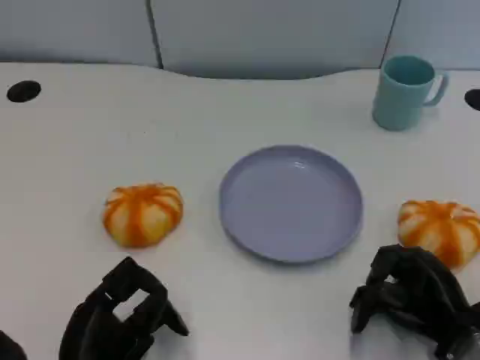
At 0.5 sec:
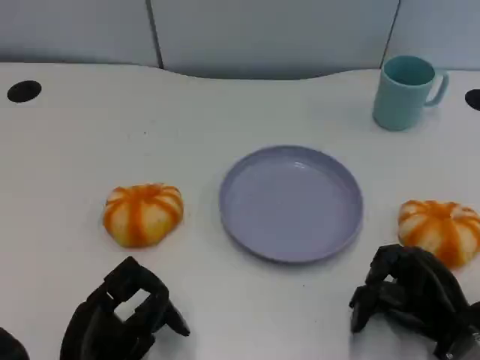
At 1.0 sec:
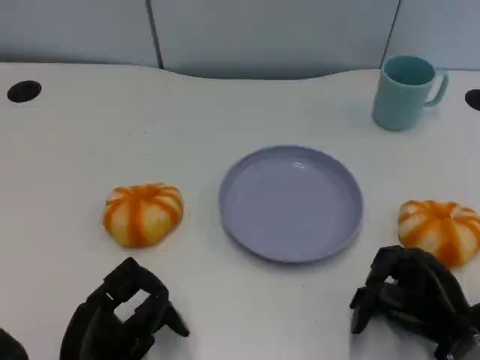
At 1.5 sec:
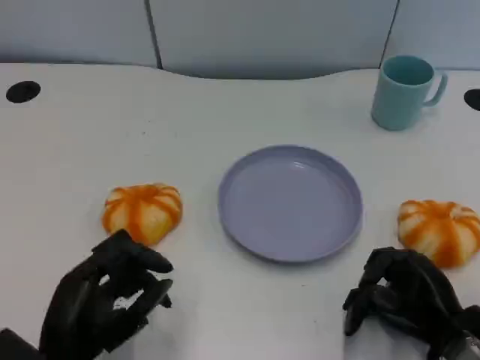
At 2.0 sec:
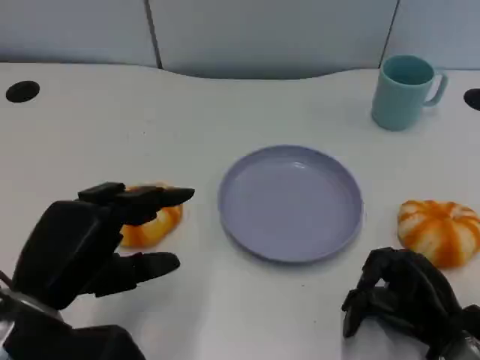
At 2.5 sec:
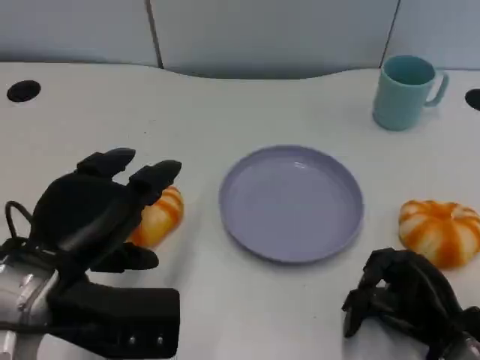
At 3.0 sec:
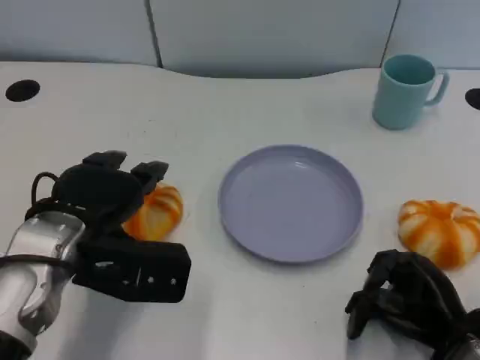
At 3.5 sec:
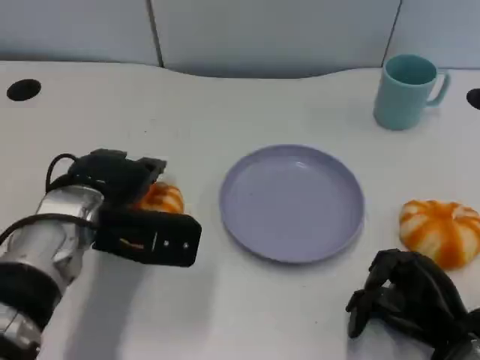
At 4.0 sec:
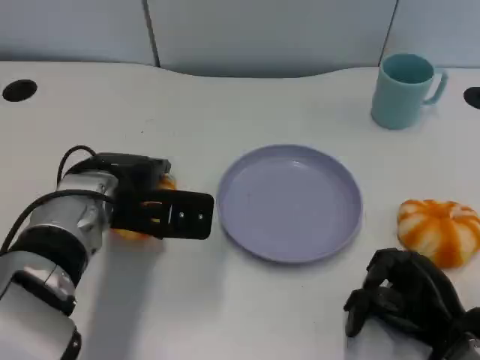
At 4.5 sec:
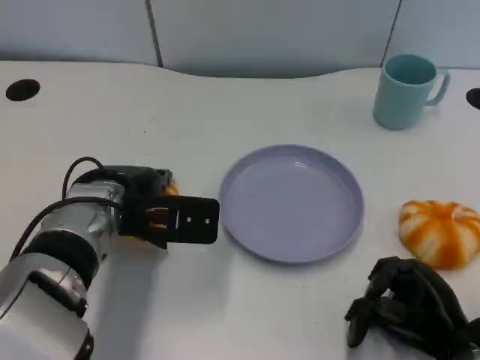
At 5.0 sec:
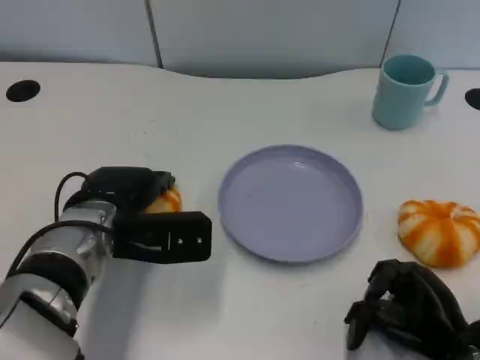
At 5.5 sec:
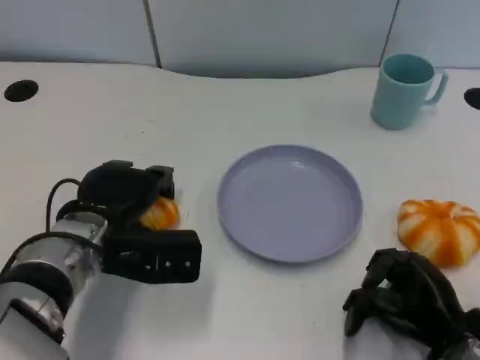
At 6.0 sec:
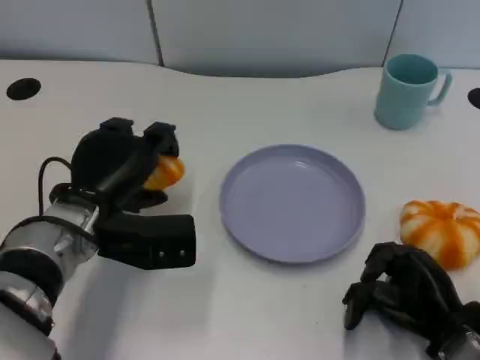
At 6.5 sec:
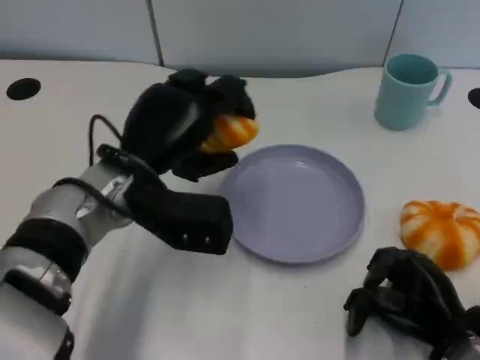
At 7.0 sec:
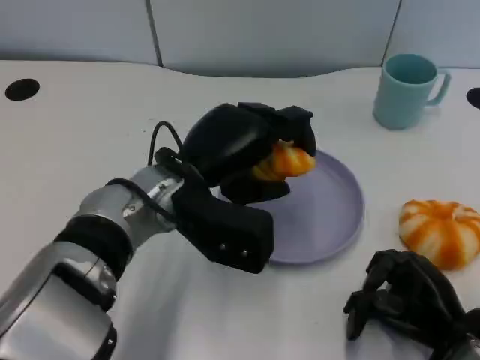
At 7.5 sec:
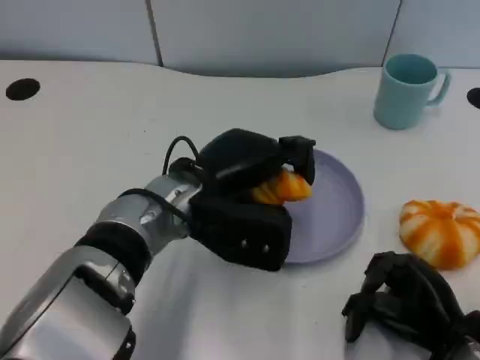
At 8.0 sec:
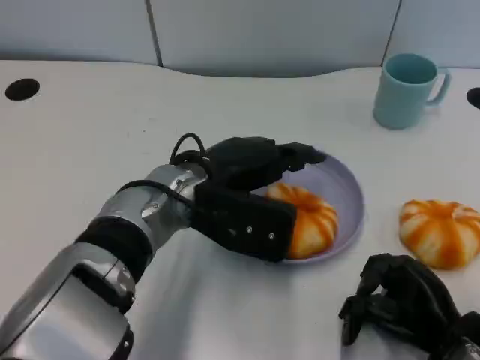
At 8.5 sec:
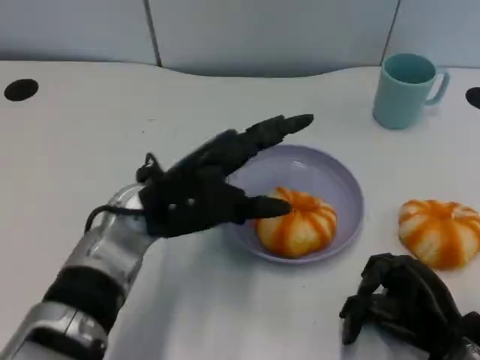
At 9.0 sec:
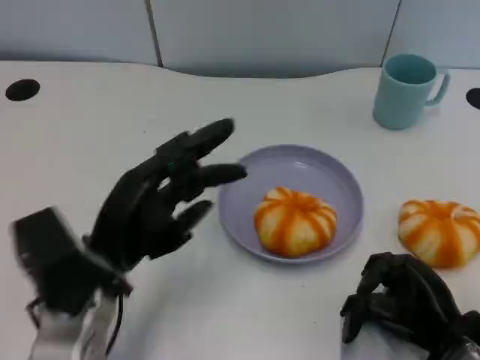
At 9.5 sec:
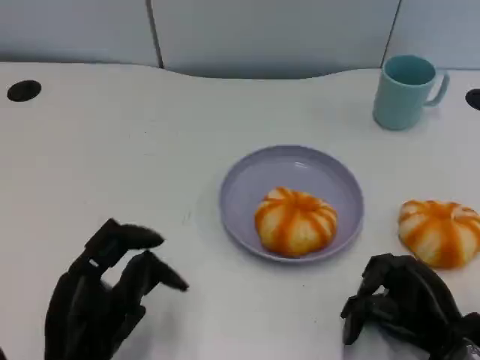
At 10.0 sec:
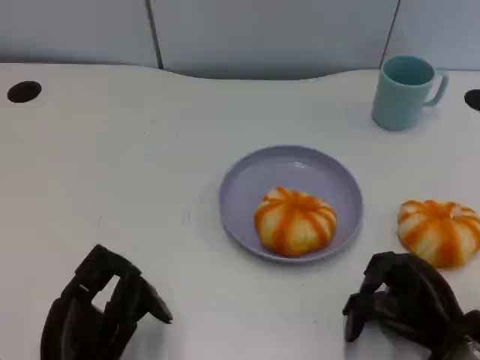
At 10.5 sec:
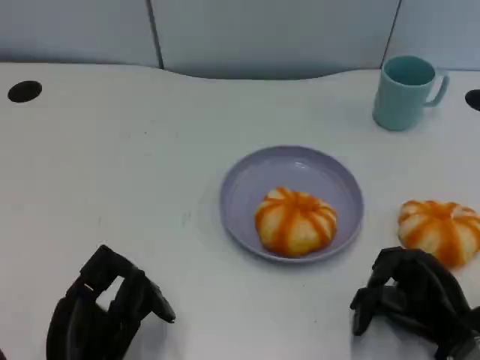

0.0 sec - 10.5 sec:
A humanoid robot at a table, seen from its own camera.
Task of the whole recording: Grasp the bread from the table and place it into the plate.
0.0 sec - 2.0 sec: The left hand is displaced upward by about 10 cm.
2.0 sec - 4.0 sec: The left hand travels forward and to the right by roughly 15 cm.
8.5 sec - 10.5 sec: The left hand heads backward, downward and to the left, covering approximately 20 cm.

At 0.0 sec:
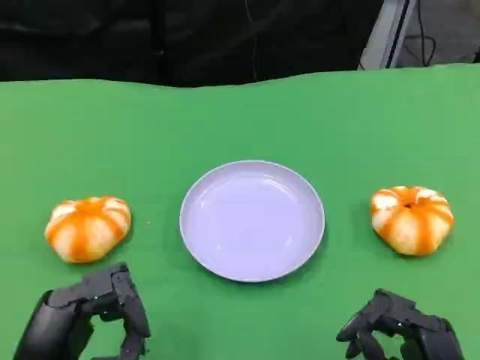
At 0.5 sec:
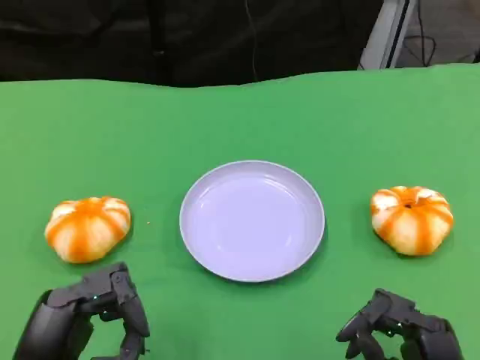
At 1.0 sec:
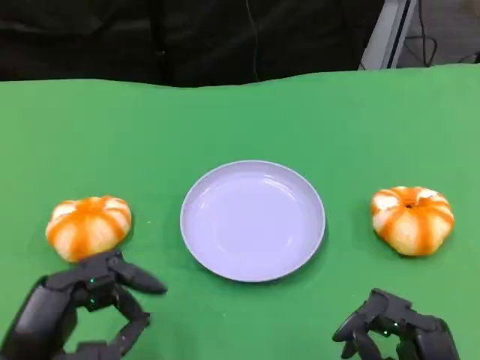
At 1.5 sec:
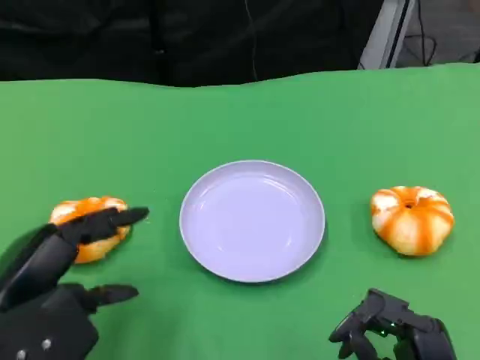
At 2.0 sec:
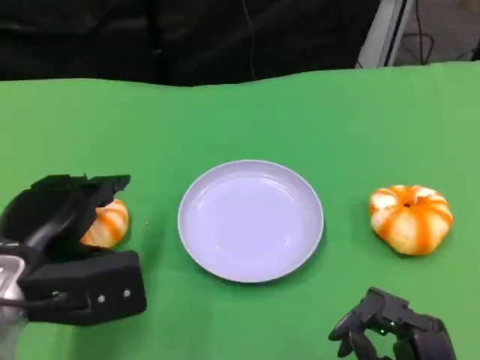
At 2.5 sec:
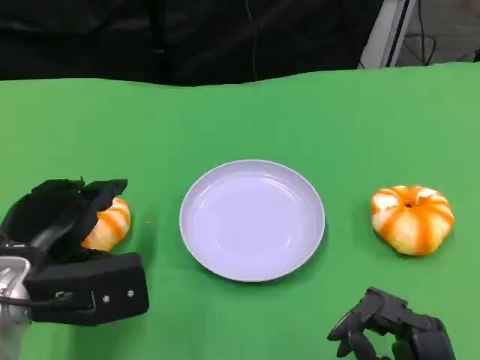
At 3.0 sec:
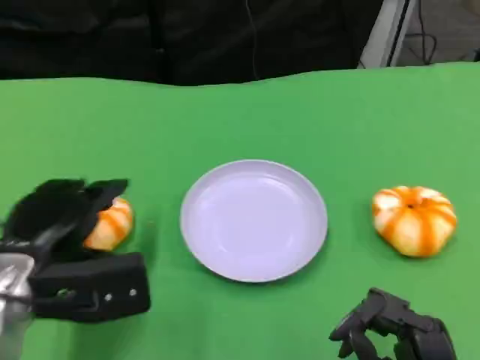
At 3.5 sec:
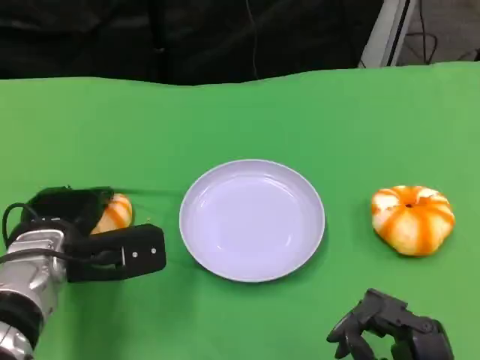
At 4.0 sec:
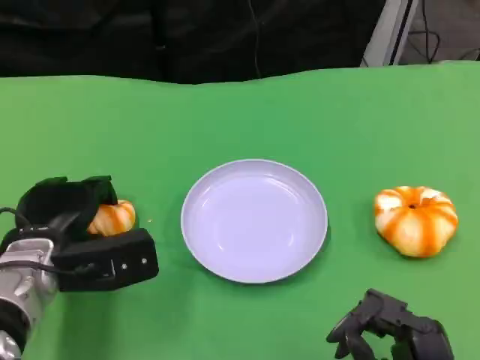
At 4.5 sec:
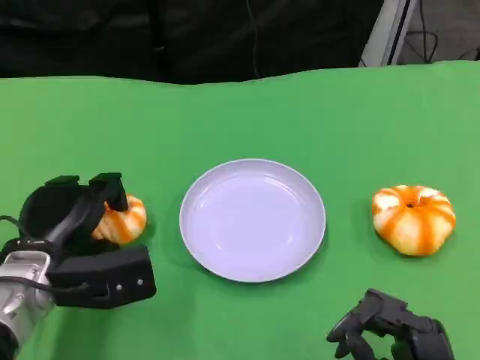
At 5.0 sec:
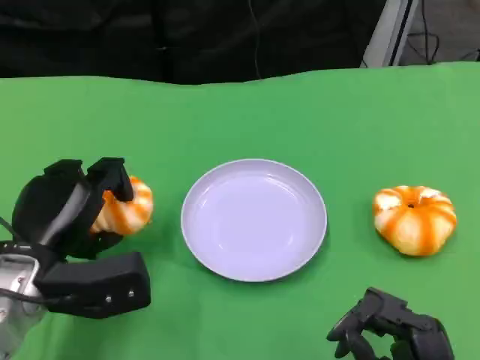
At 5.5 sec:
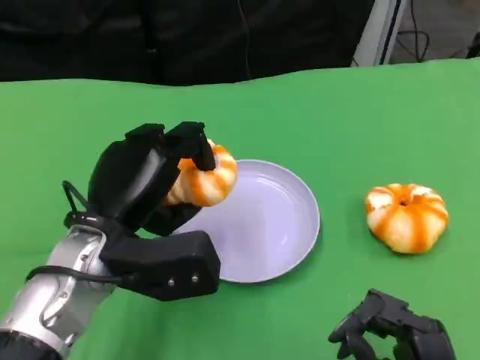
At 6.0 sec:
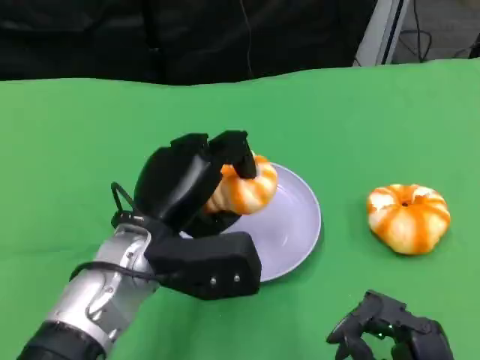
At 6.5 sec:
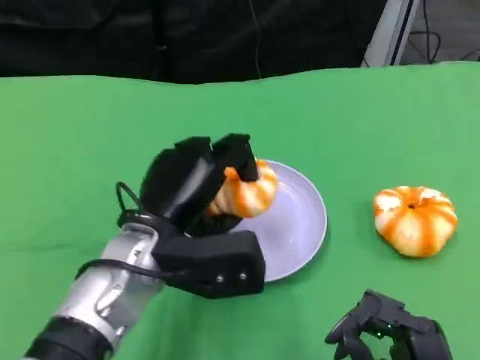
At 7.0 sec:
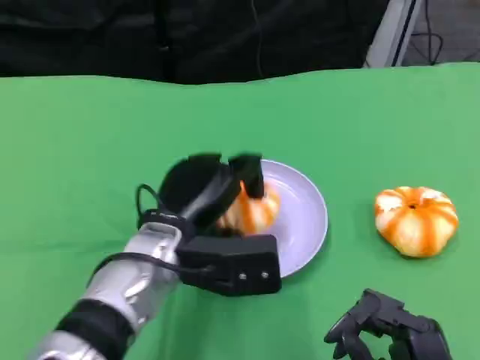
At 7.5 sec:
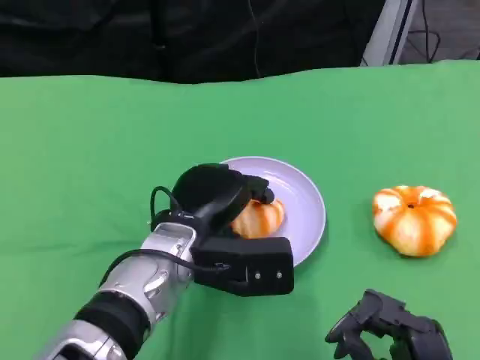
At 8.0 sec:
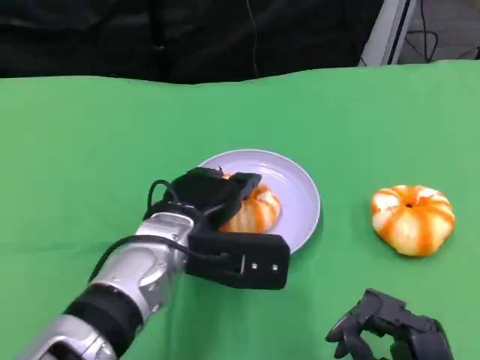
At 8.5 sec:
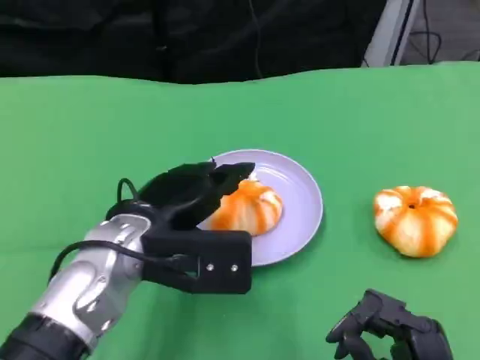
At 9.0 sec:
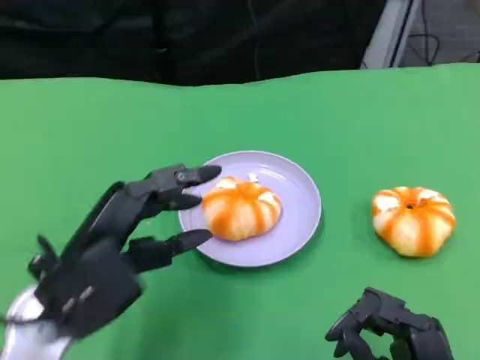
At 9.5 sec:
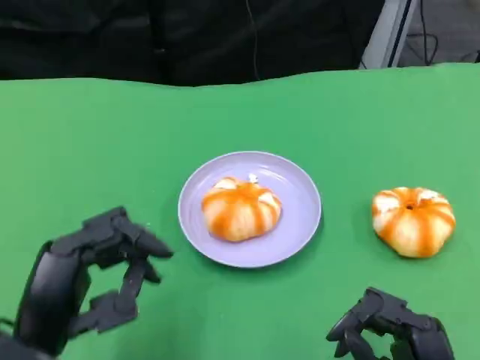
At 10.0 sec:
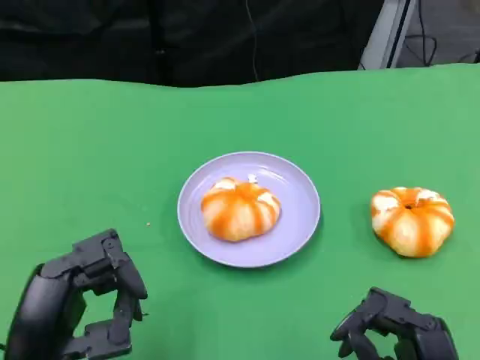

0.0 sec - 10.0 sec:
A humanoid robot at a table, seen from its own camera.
Task of the whole recording: Grasp the bread from the table and place it into the plate.
0.0 sec - 2.0 sec: The left hand shifts about 10 cm forward.
2.0 sec - 4.0 sec: The left hand heads downward, covering roughly 5 cm.
4.0 sec - 6.0 sec: The left hand heads to the right and upward, covering approximately 10 cm.
8.0 sec - 10.0 sec: The left hand travels backward and to the left by roughly 20 cm.

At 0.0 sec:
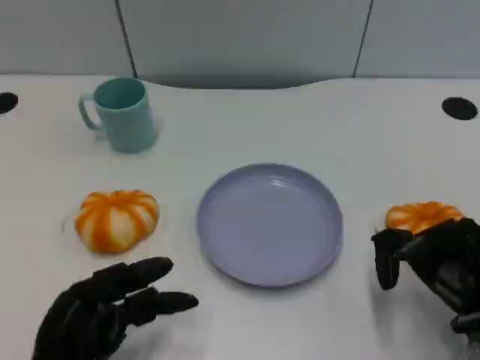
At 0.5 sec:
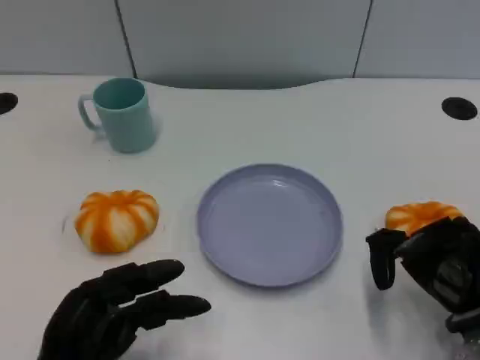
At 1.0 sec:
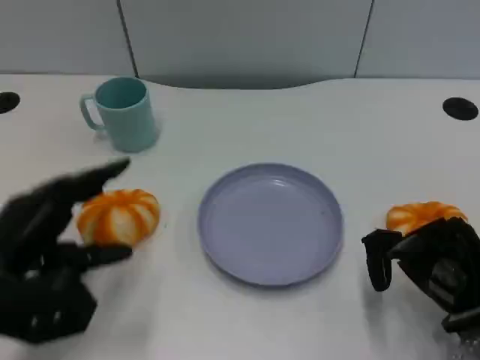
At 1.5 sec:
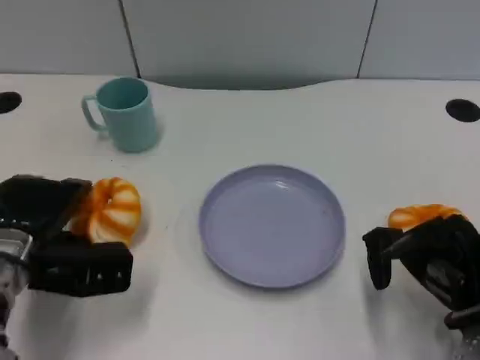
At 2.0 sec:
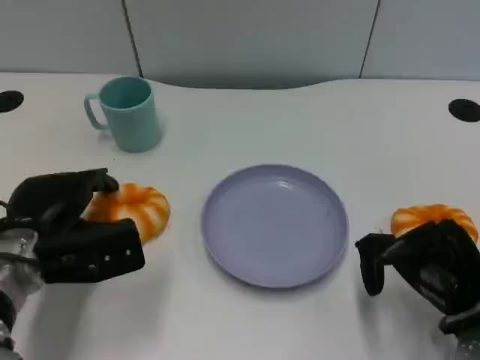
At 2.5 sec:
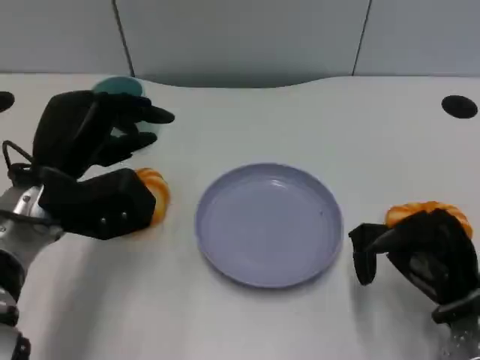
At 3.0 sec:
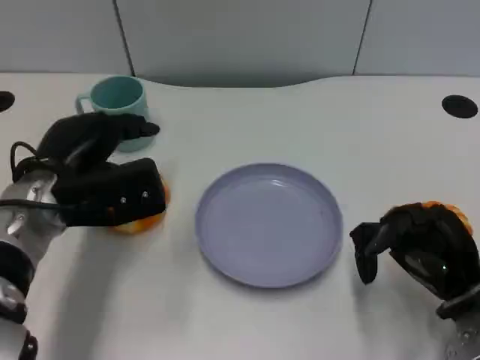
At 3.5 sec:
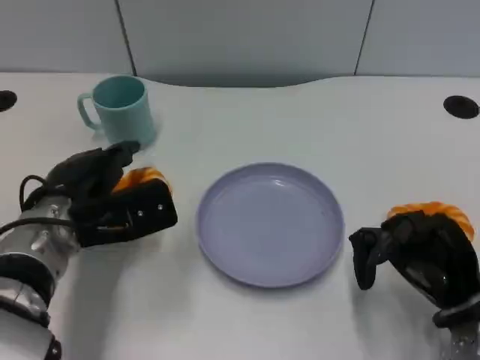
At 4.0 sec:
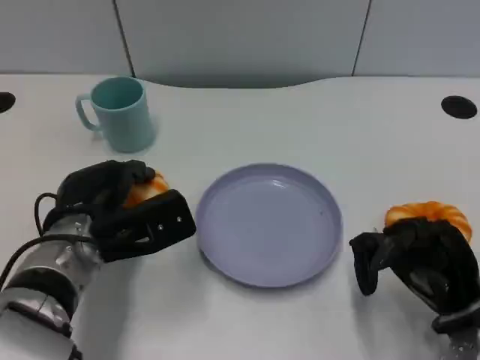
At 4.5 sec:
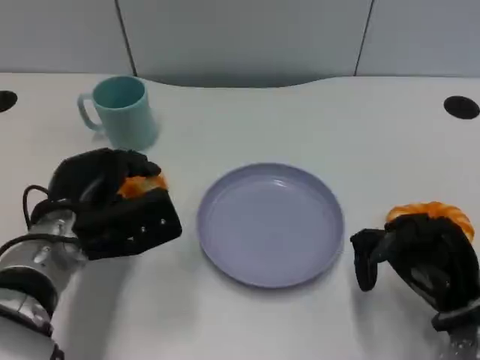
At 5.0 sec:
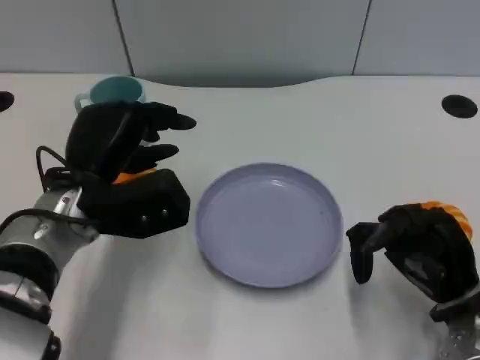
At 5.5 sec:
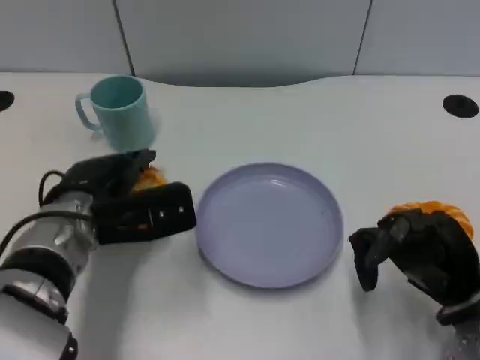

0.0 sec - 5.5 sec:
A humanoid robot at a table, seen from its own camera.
Task of the whole recording: Grasp the bread from the table and place it into the plate.
0.0 sec - 2.0 sec: The left hand moves forward, approximately 15 cm.
